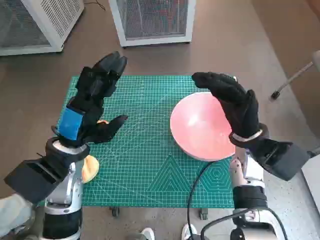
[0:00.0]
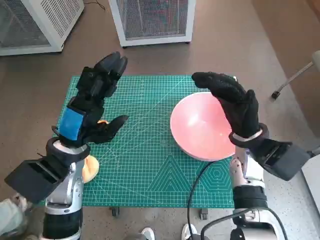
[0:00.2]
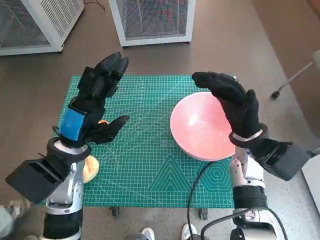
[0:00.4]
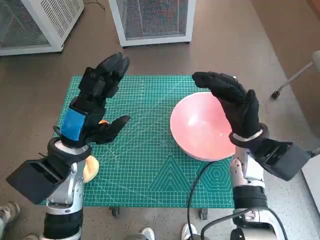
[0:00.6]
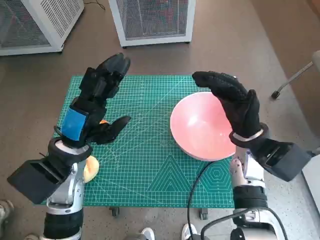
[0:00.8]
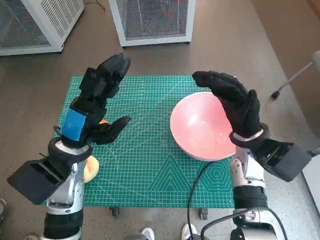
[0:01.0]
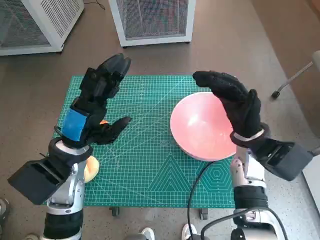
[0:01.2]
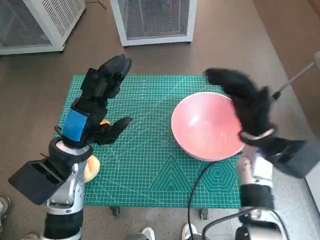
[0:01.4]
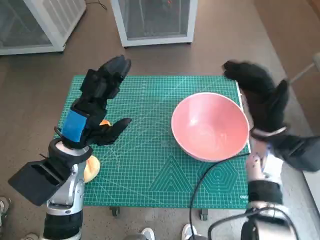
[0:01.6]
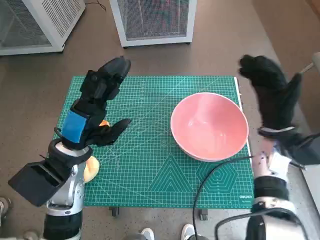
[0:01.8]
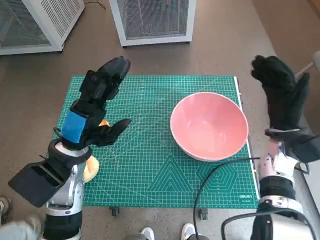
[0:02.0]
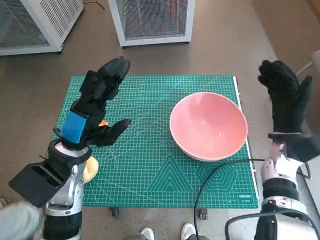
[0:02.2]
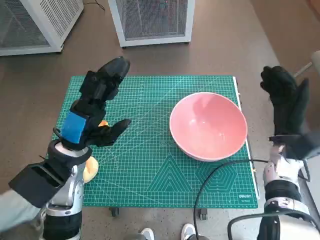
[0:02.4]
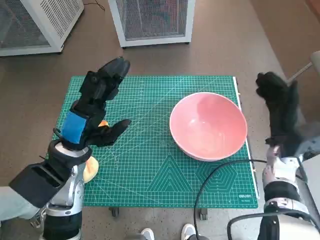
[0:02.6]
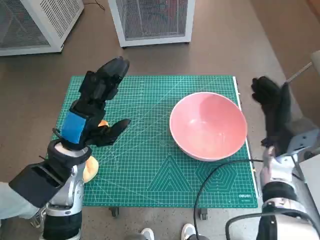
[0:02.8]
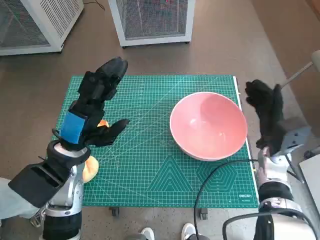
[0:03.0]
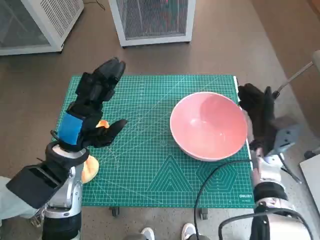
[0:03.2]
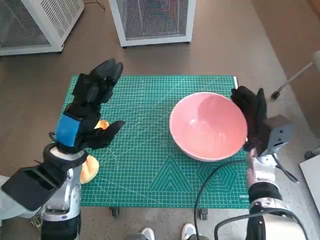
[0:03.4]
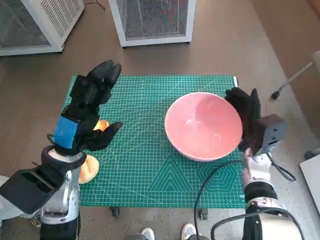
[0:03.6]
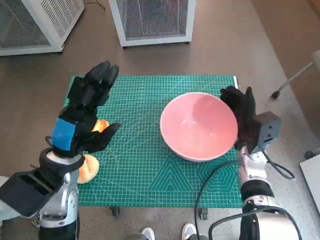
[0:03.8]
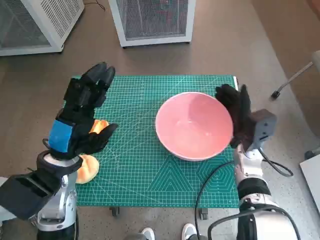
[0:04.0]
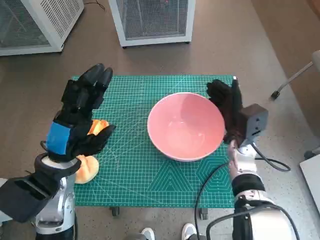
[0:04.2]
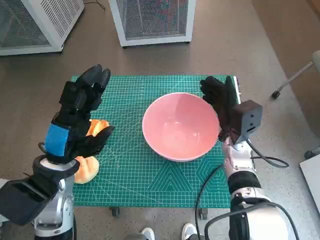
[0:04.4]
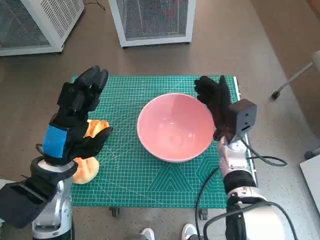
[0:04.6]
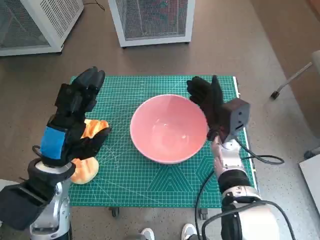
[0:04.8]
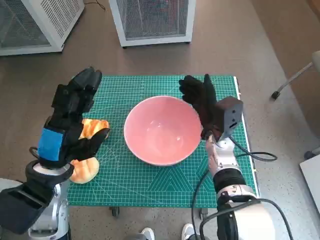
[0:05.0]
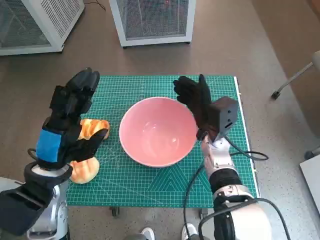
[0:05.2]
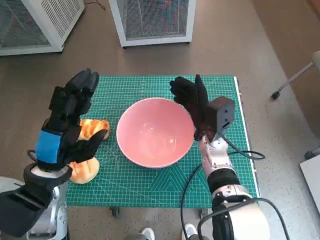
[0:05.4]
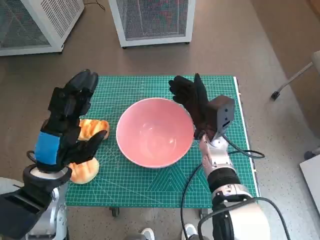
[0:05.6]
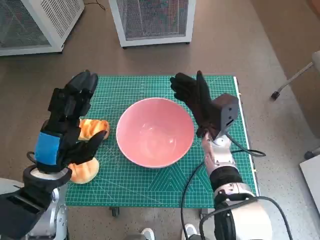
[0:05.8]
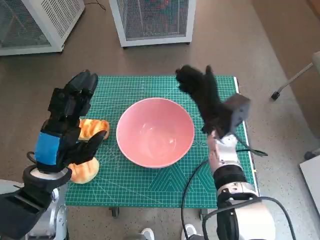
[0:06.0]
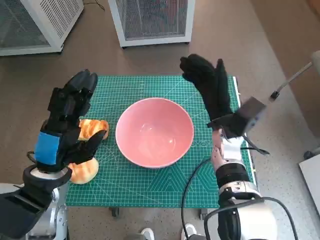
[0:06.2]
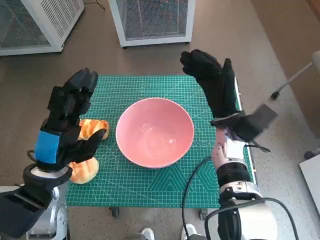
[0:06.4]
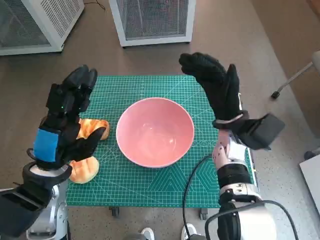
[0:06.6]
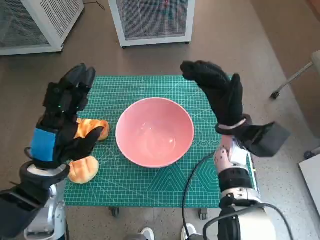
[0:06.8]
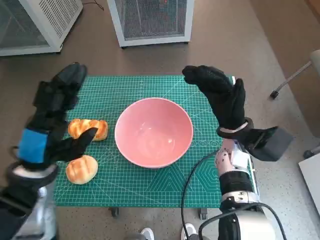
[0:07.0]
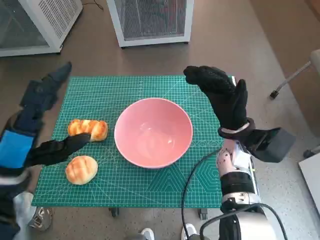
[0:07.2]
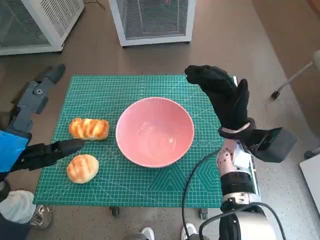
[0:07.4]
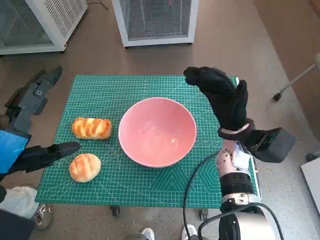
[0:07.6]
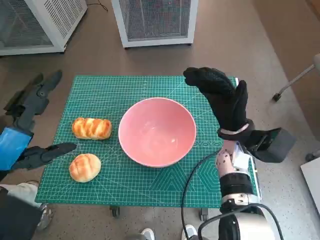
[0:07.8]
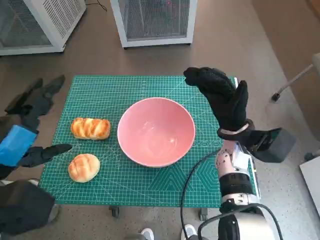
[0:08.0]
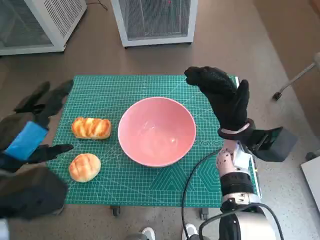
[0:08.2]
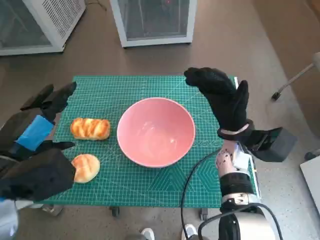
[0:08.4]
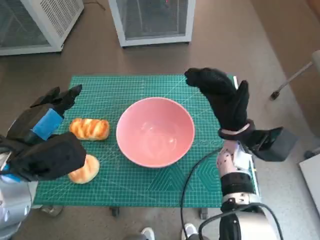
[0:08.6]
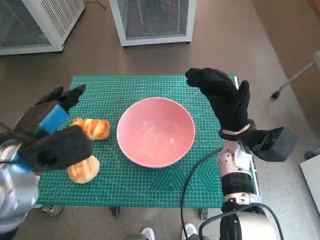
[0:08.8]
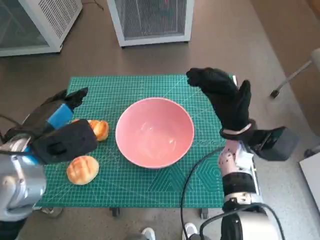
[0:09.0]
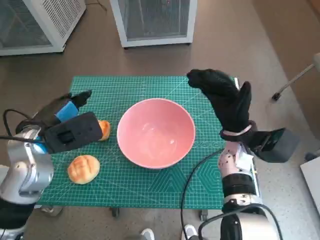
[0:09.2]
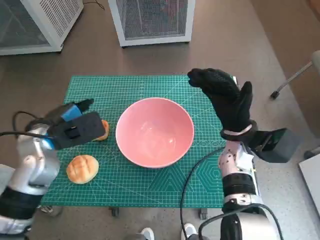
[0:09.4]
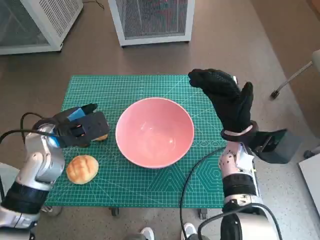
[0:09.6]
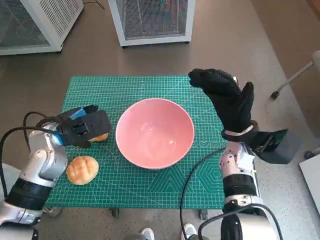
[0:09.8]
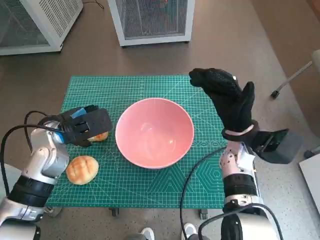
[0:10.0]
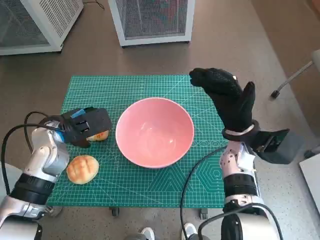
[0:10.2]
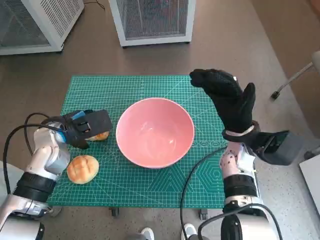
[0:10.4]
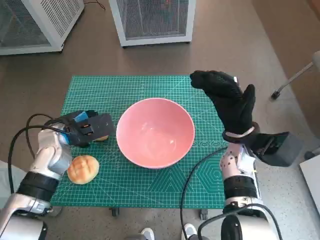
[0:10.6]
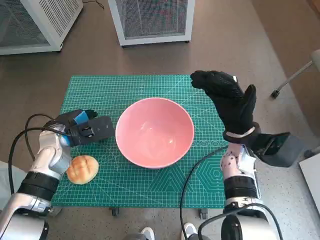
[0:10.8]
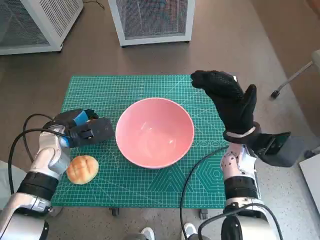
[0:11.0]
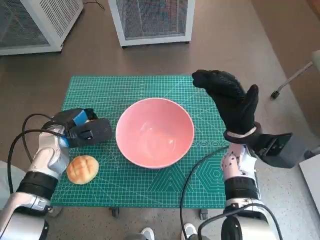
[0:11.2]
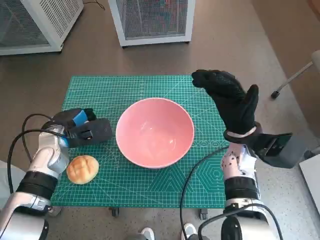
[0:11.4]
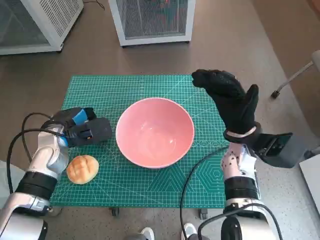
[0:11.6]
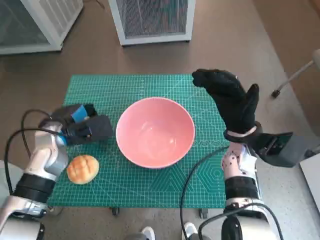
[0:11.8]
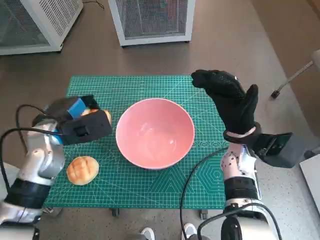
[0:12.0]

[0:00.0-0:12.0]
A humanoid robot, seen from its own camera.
Task of the whole recording: Push the bowl into the center of the table and put the bread into the bowl.
Step, 0:00.0 to 0:05.8: Move the pink bowl to the center of table with right hand.
Step, 0:06.0 to 0:10.8: Grasp the long bread with left hand.
0:01.6 to 0:03.0: The right hand goes approximately 5 cm downward.
0:03.0 to 0:04.4: The right hand travels to the left by roughly 10 cm.
0:04.4 to 0:06.0: The right hand shifts by roughly 5 cm.
0:06.0 to 0:07.6: The left hand goes approximately 10 cm upward.
0:07.6 to 0:09.0: The left hand travels forward by about 10 cm.
0:09.0 to 0:10.4: The left hand moves forward and downward, about 10 cm.
0:10.4 to 0:12.0: The hands stay close to where they were, moving slightly.

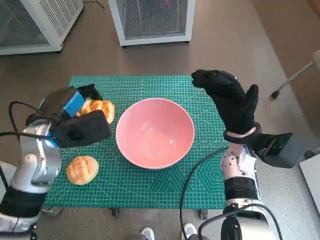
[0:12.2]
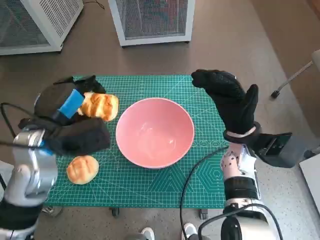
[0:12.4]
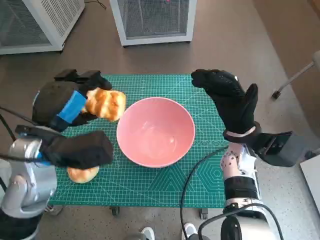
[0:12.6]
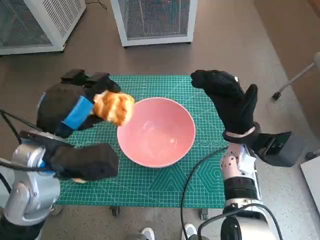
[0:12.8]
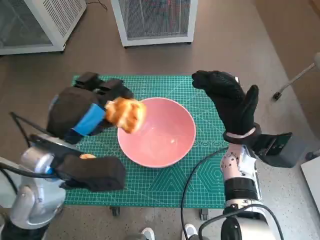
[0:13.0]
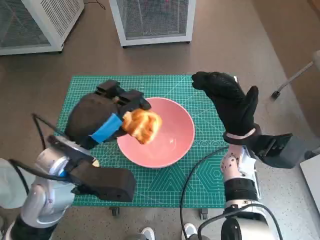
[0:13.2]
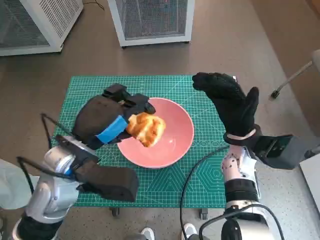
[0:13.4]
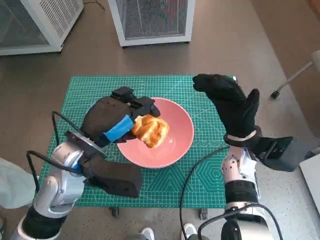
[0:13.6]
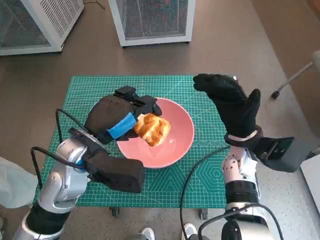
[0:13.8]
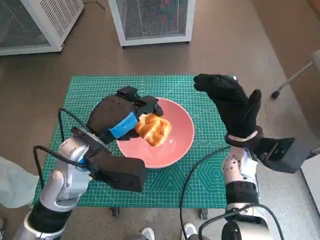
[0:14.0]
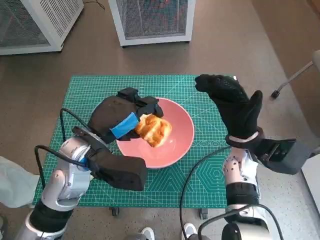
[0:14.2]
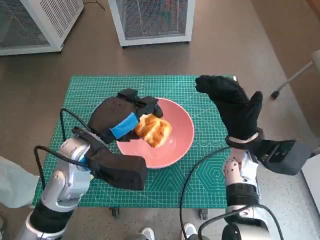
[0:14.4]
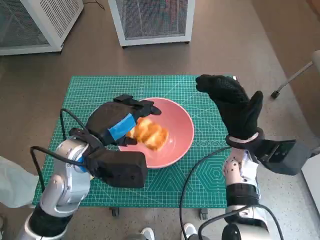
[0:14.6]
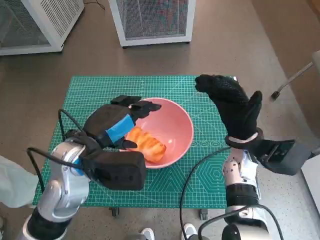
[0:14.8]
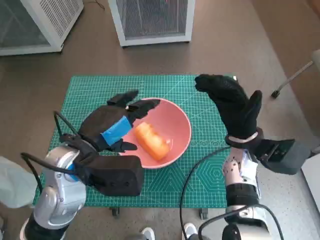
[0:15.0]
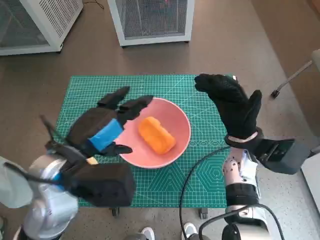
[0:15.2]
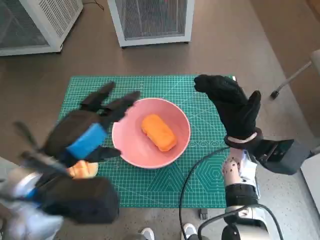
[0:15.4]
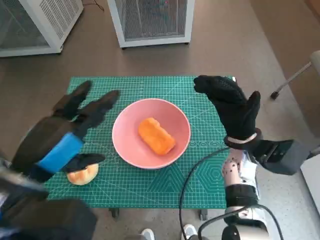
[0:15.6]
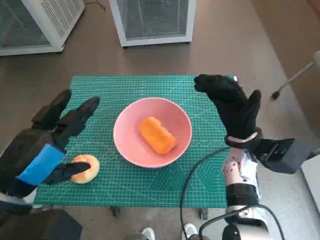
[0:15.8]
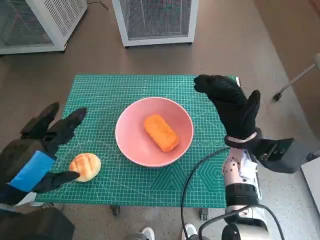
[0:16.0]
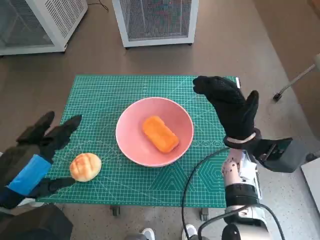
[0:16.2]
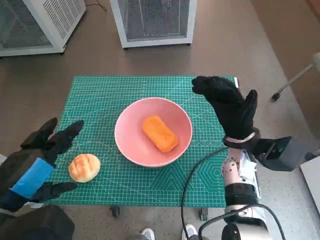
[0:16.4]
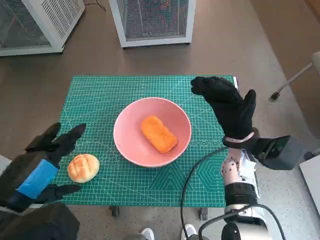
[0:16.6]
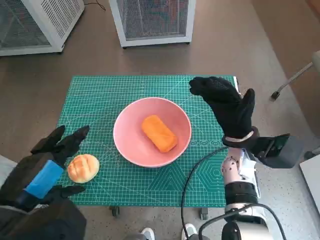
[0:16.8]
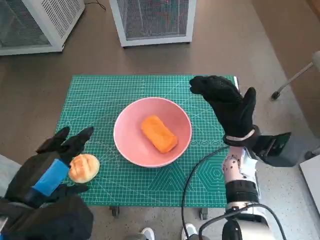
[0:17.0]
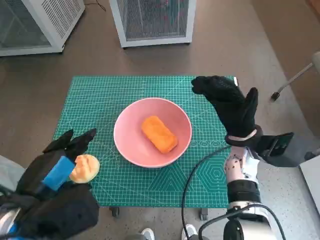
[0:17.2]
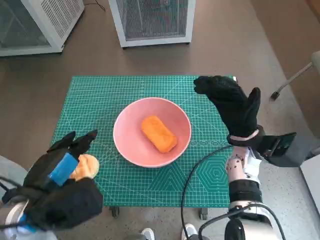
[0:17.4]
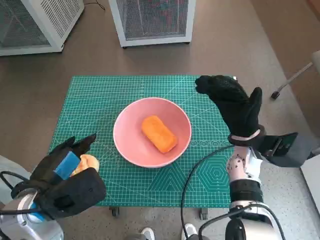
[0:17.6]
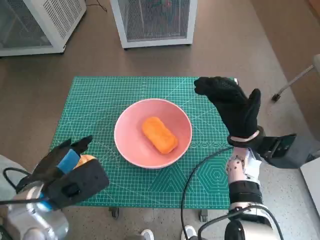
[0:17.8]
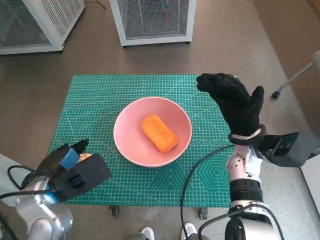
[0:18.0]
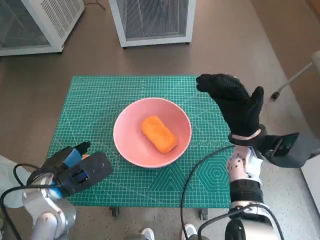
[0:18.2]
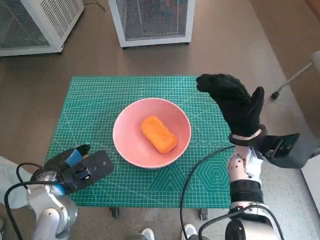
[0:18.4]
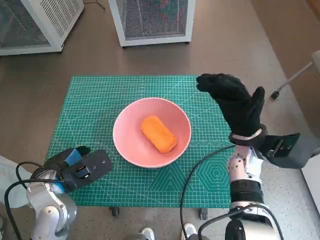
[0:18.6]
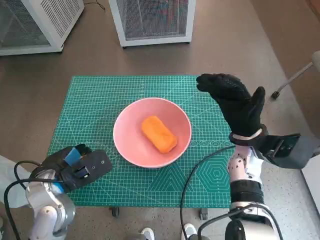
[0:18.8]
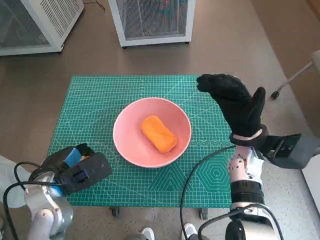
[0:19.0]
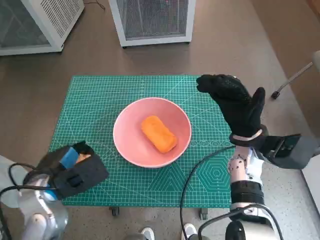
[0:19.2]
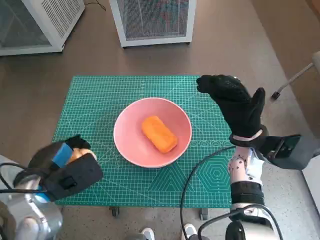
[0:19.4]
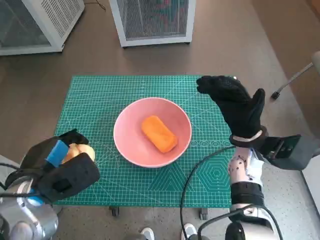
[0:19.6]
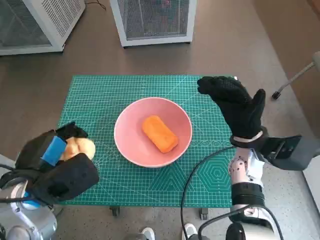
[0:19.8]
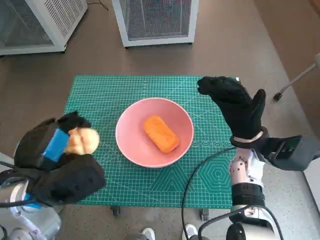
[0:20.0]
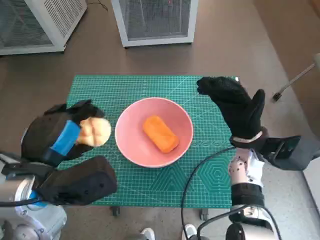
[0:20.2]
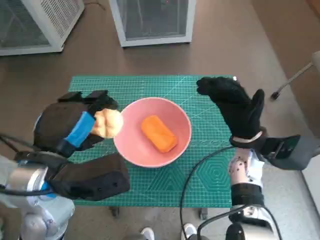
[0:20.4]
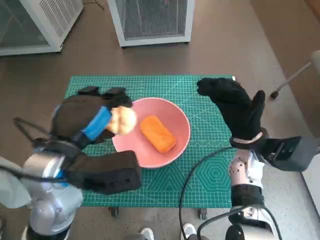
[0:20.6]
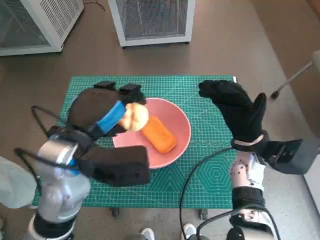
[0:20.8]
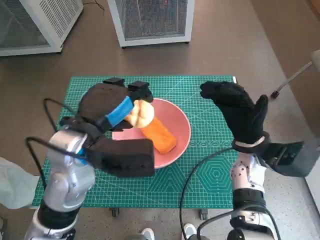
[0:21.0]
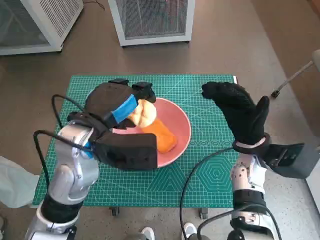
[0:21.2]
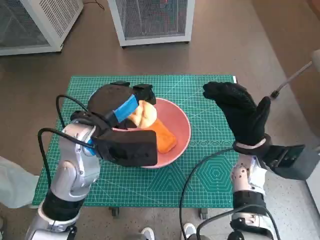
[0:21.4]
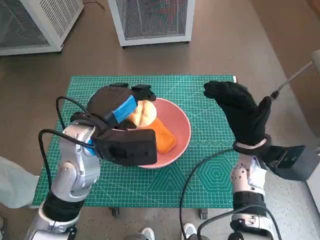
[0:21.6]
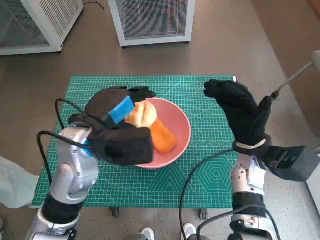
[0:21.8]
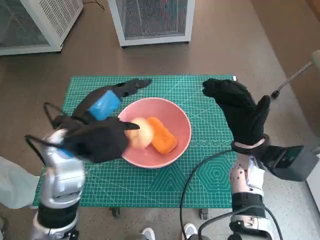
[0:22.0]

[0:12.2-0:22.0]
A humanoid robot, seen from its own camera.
Task of the whole recording: Push the bowl into the center of the table and put the bread into the bowl.
Step, 0:12.2 to 0:14.6: Place the long bread in pink bowl with left hand.
Step, 0:14.8 to 0:18.8: Grasp the round bread with left hand.
Step, 0:19.0 to 0:21.8: Place the round bread in pink bowl with left hand.
0:12.2 to 0:13.6: The left hand moves to the right, some 5 cm.
0:13.6 to 0:15.0: The hands stay close to where they were, moving slightly.
0:15.0 to 0:16.4: The left hand moves backward and to the left, roughly 15 cm.
0:16.4 to 0:17.8: The left hand is displaced downward and forward by some 10 cm.
0:17.8 to 0:19.2: There are only small adjustments of the hands.
0:19.2 to 0:20.6: The left hand moves upward and to the right, approximately 15 cm.
0:20.6 to 0:22.0: The left hand travels forward by some 5 cm.
